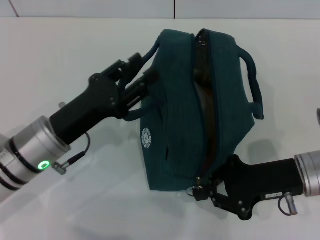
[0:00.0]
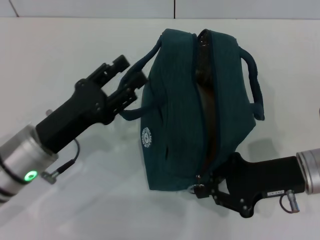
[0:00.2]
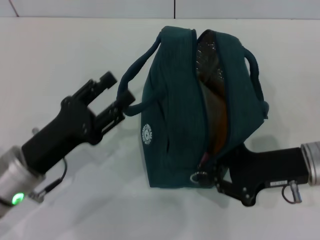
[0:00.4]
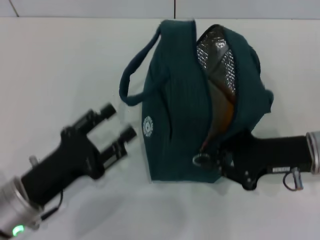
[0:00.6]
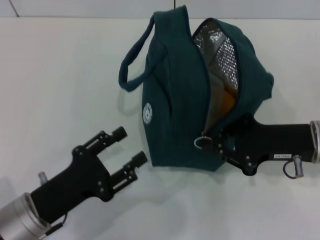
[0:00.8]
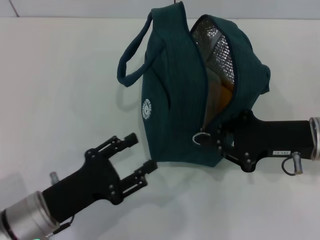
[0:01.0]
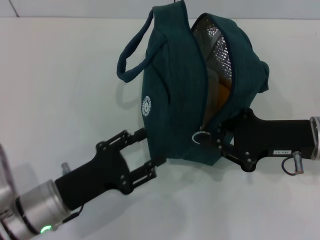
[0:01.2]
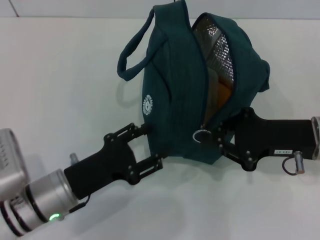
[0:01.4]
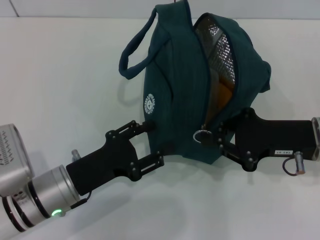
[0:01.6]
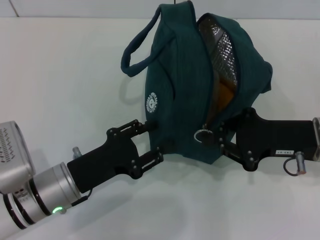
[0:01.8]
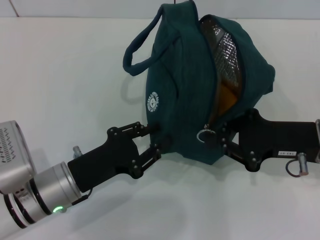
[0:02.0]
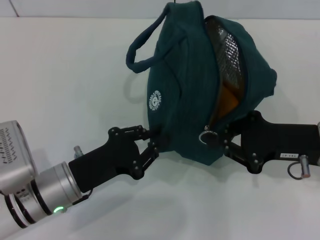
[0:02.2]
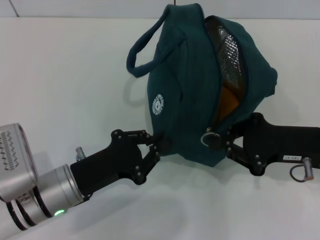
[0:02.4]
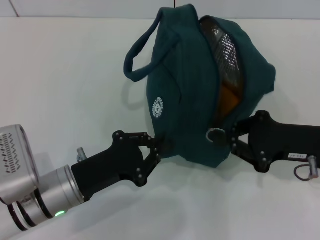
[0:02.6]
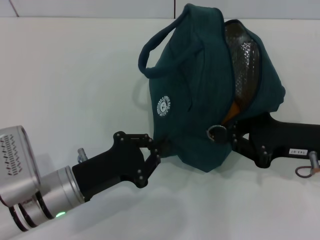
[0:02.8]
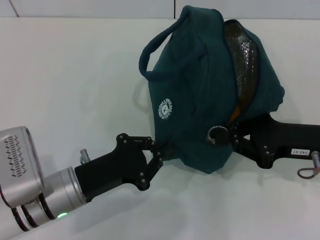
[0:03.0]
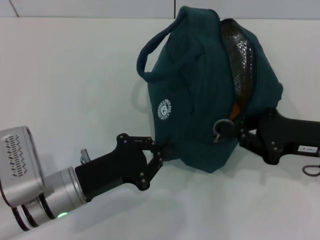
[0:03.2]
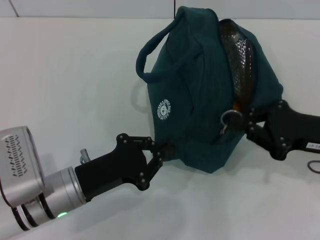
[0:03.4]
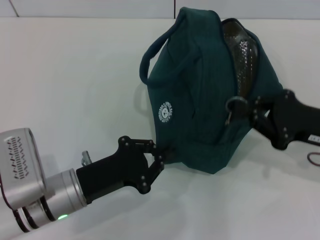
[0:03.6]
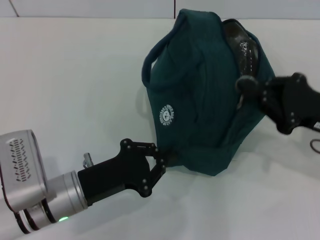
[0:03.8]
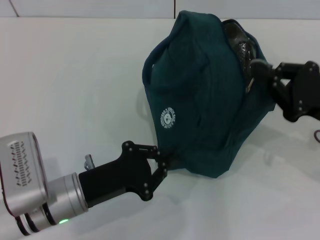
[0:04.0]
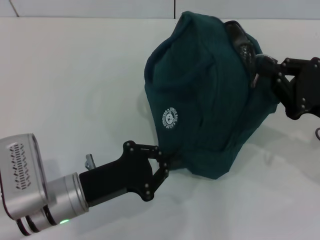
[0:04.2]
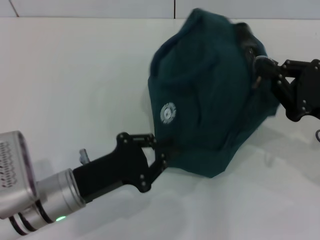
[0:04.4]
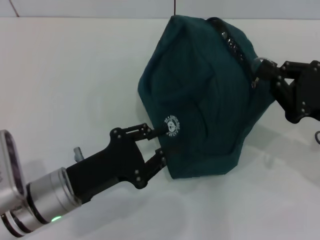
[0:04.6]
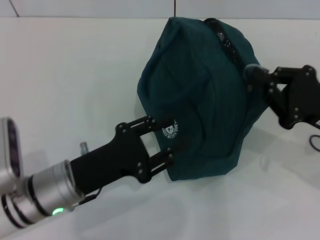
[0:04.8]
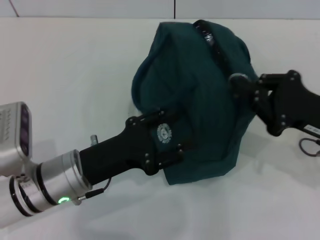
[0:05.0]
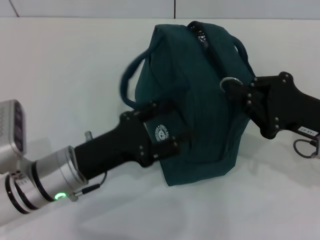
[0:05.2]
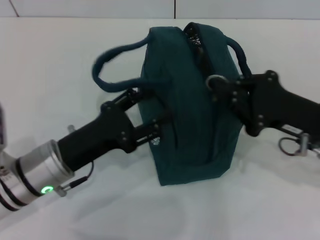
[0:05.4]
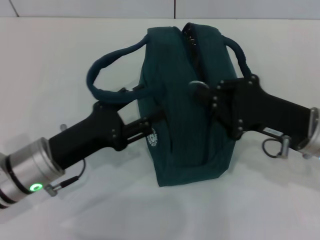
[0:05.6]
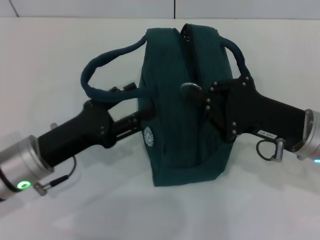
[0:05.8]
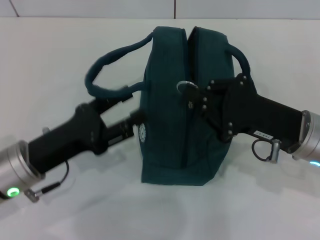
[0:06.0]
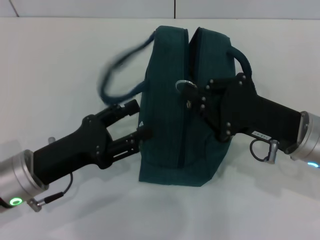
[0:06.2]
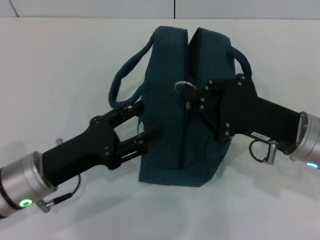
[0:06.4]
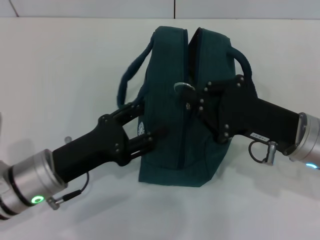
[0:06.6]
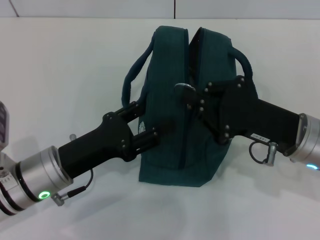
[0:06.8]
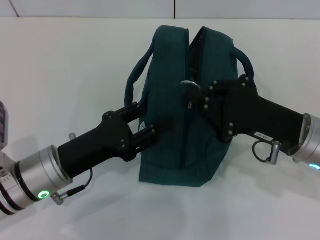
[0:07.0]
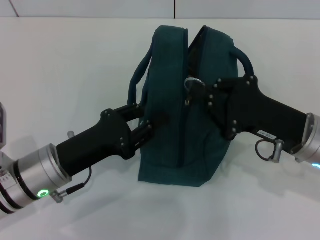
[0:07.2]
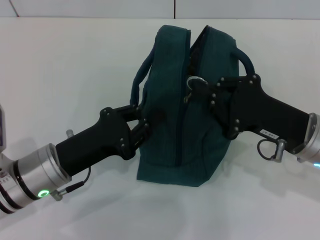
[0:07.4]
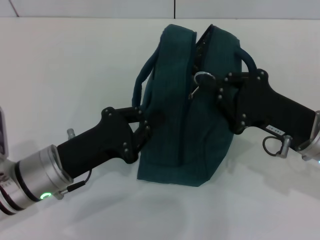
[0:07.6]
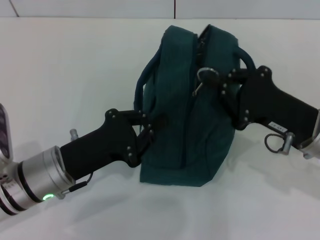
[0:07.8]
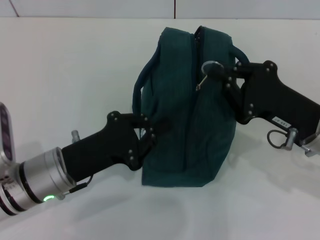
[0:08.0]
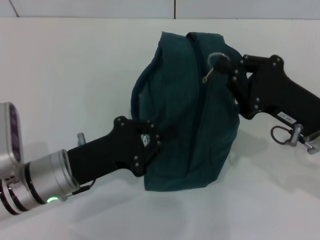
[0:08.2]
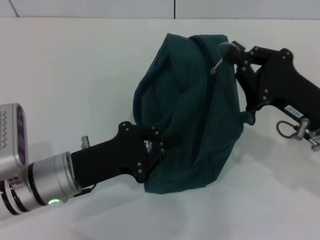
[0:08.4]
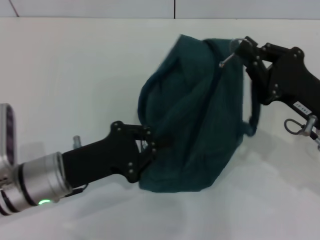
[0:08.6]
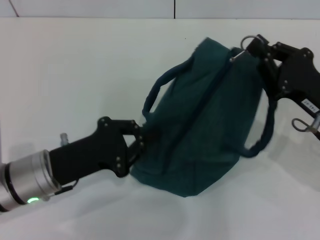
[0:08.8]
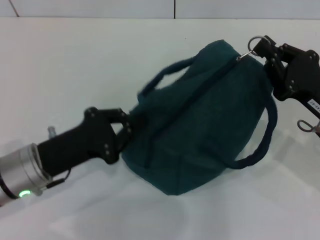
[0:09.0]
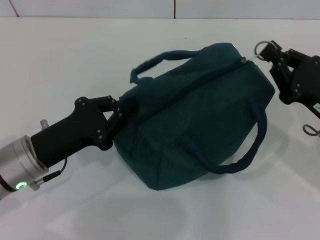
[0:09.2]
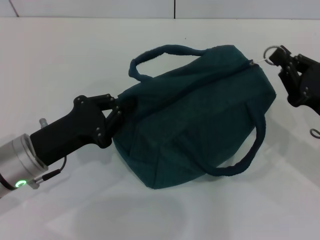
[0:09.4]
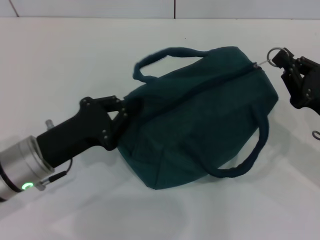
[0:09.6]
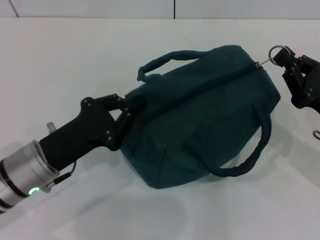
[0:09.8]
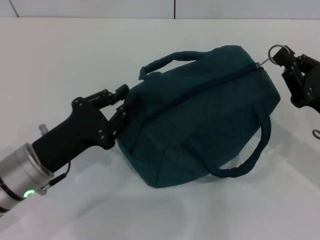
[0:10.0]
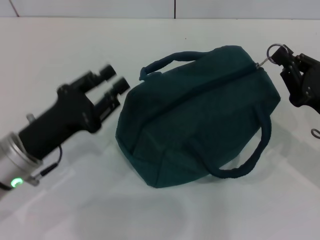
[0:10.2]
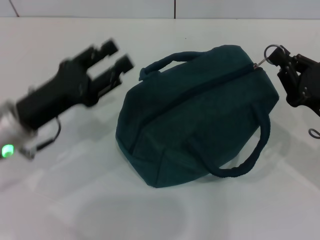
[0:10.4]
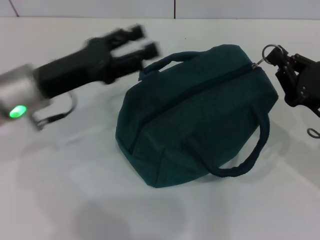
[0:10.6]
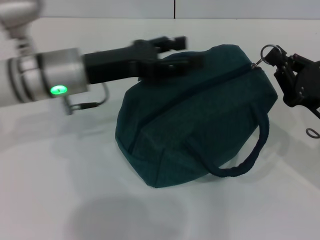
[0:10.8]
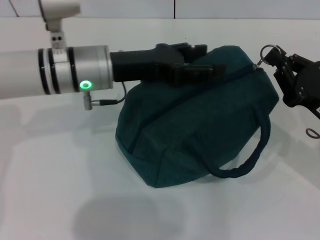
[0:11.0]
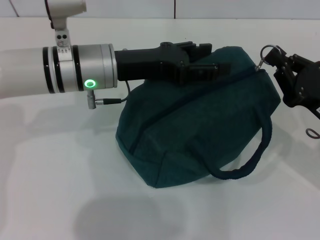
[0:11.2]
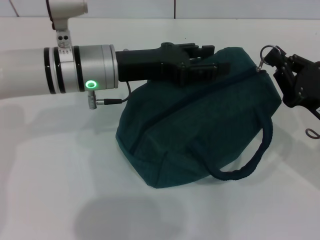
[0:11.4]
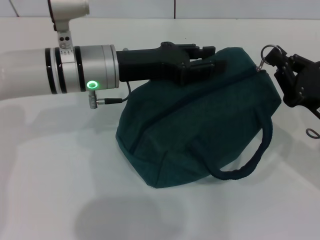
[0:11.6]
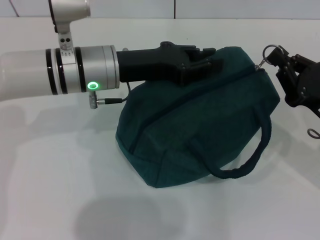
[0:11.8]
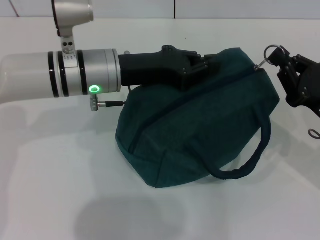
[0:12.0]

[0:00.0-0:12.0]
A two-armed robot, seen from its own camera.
0:01.6 to 0:03.0: The left gripper closes.
0:04.4 to 0:06.0: The left gripper changes place by roughly 5 cm, and opens. Meanwhile the right gripper goes roughly 10 cm to the left.
0:06.0 to 0:07.6: The left gripper closes up.
0:09.0 to 0:10.4: The left gripper moves roughly 5 cm, and opens its fingers.
0:10.4 to 0:12.0: The left gripper moves to the right and forward, about 15 cm, and opens, then closes again.

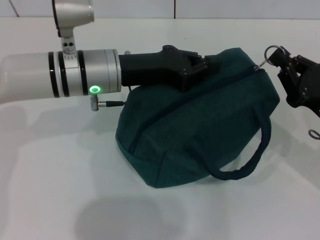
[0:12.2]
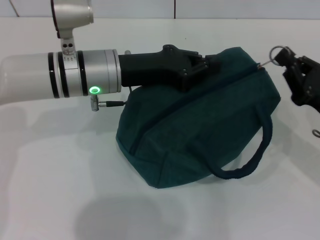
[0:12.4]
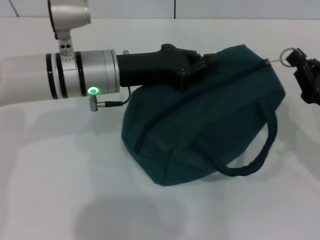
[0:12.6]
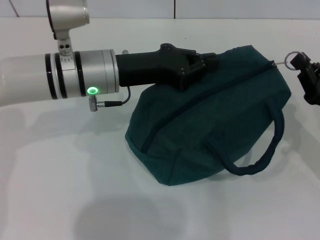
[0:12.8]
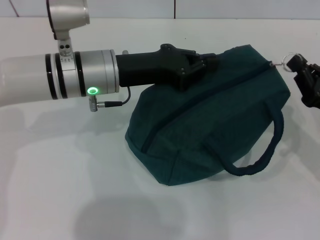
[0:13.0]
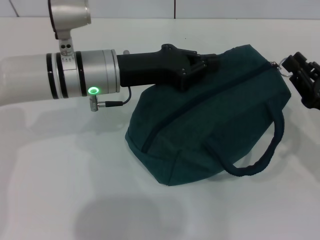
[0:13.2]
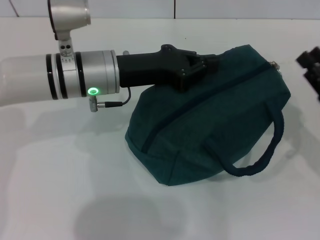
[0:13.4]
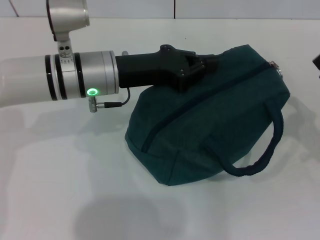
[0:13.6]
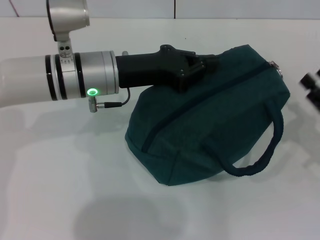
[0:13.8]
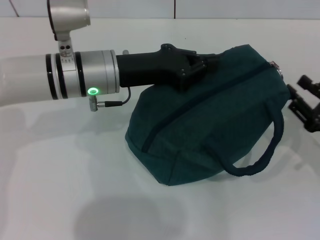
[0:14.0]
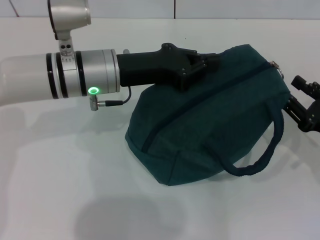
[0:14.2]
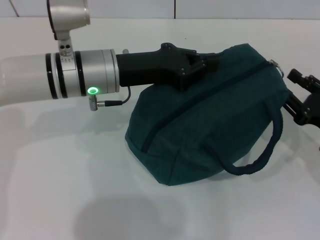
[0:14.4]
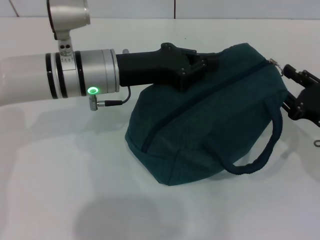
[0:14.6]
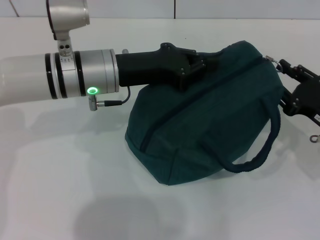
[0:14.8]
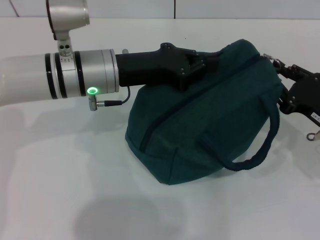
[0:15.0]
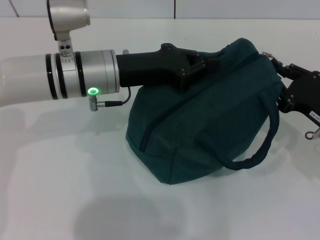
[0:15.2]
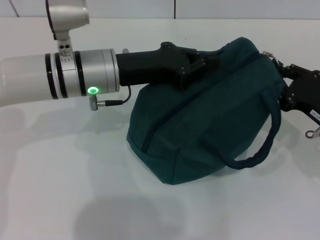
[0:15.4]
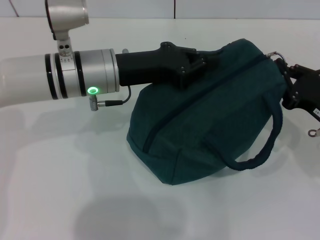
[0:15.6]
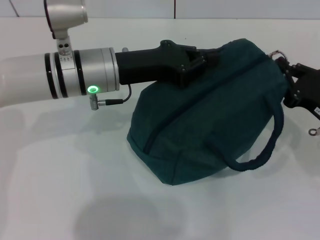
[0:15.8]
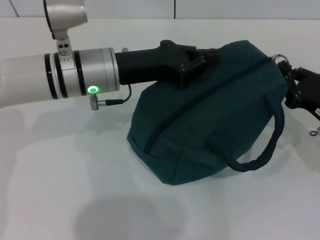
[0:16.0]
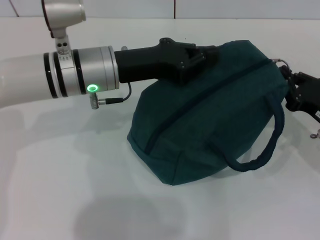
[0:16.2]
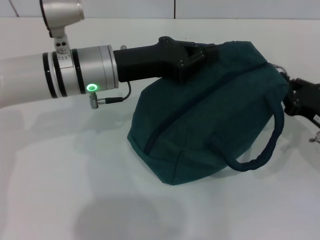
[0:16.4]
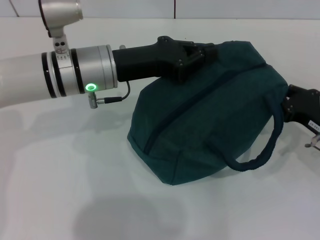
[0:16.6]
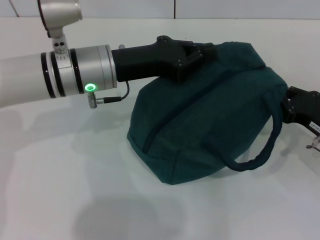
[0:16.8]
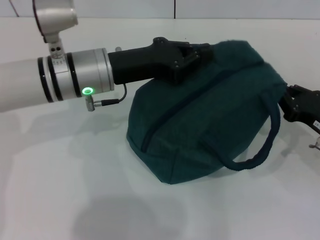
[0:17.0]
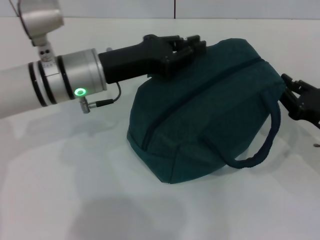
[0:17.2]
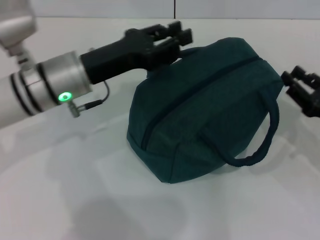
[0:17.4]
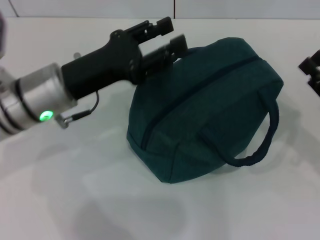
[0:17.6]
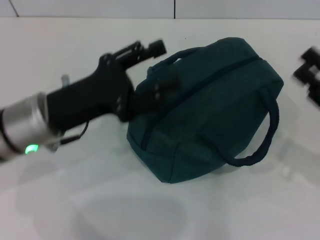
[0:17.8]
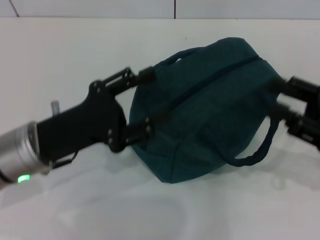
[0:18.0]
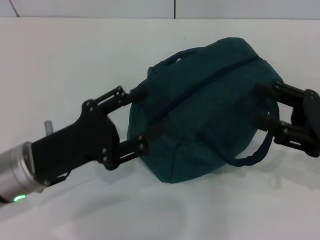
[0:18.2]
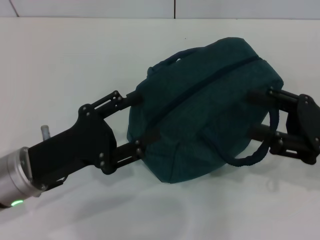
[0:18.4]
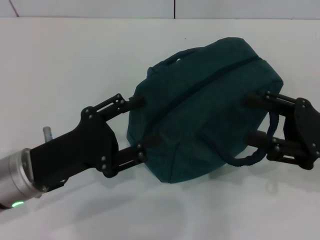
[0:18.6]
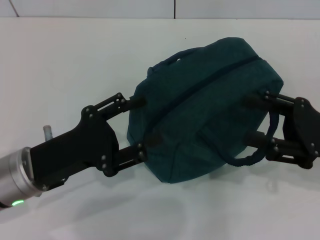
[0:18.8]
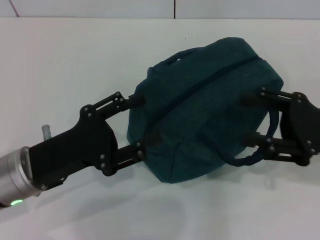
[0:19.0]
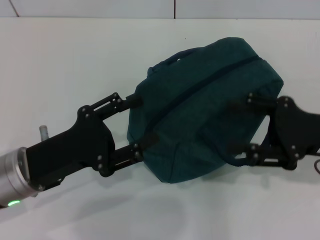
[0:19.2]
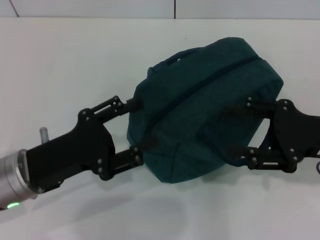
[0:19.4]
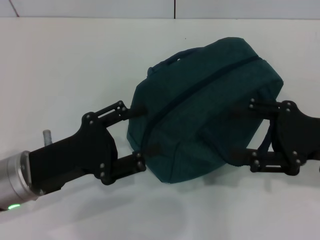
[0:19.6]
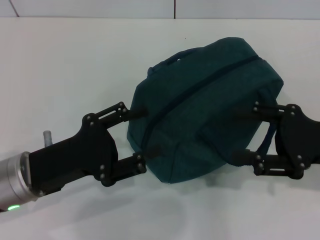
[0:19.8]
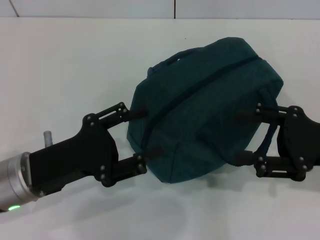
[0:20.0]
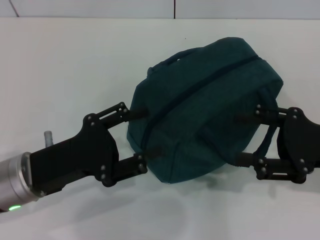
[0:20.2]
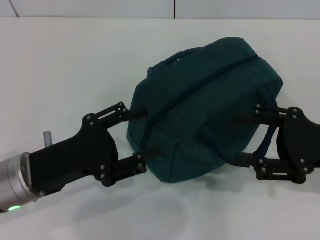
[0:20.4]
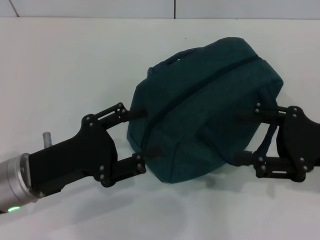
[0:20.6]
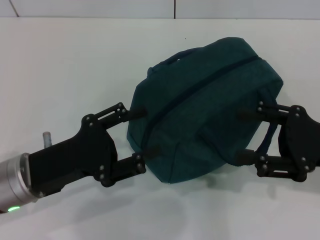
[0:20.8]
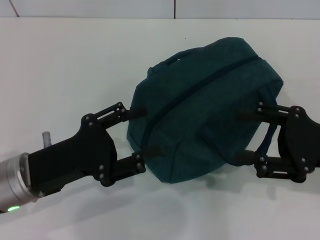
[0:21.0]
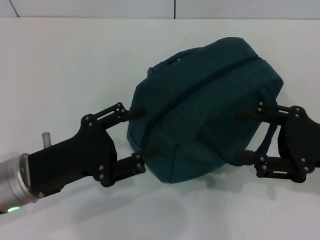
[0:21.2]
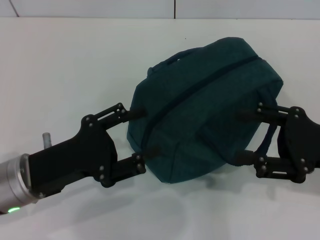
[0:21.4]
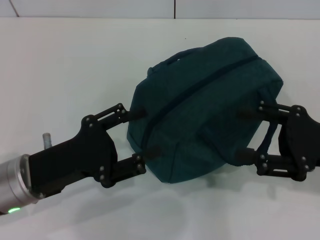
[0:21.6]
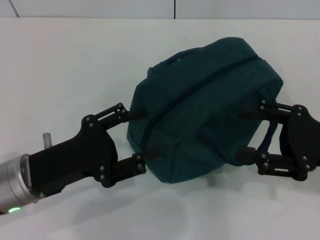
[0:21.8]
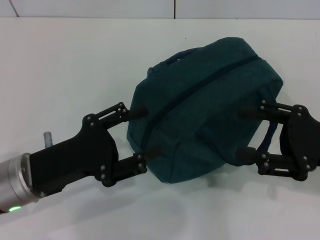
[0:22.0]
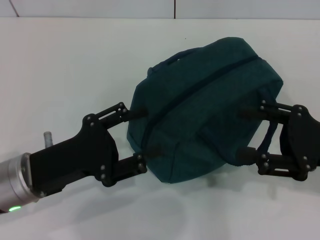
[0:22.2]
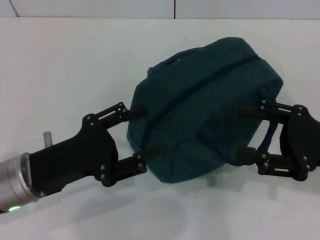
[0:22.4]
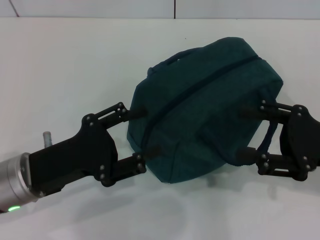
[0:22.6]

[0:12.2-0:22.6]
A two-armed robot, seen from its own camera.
Step, 0:12.2 to 0:17.2: Hold the lunch bag with your left hand.
0:12.2 to 0:13.6: The right gripper ends up about 5 cm from where it was, and opens its fingers.
0:13.6 to 0:15.2: The right gripper ends up approximately 5 cm from where it was.
0:15.2 to 0:16.6: The grippers make only small movements.
0:16.6 to 0:18.2: The left gripper moves backward, to the left and downward, about 15 cm, and opens its fingers, while the right gripper shifts roughly 5 cm upward, and opens up.
0:18.2 to 0:21.2: There are only small adjustments of the grippers.
0:21.2 to 0:22.6: Neither gripper changes place.
